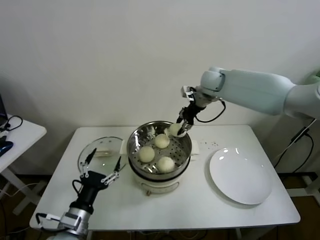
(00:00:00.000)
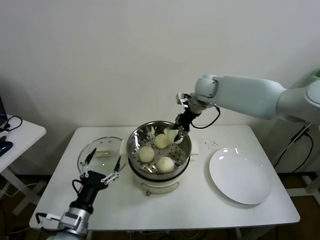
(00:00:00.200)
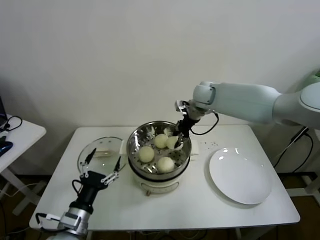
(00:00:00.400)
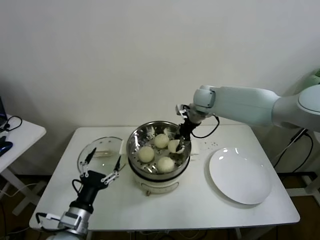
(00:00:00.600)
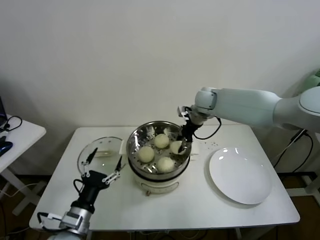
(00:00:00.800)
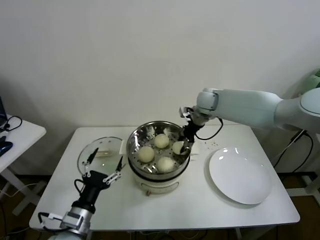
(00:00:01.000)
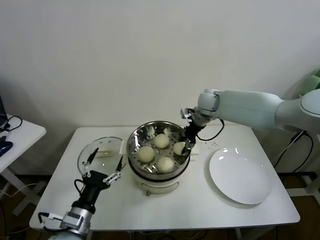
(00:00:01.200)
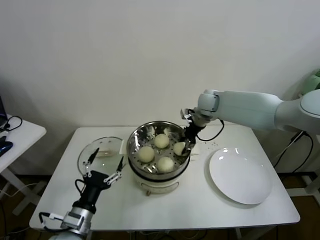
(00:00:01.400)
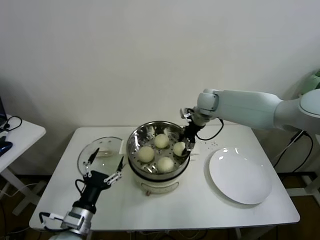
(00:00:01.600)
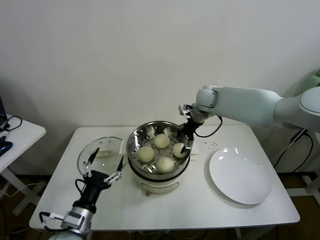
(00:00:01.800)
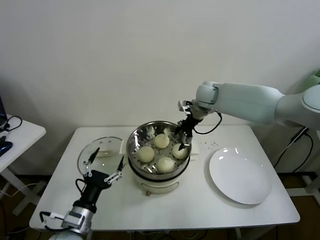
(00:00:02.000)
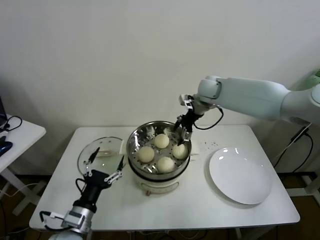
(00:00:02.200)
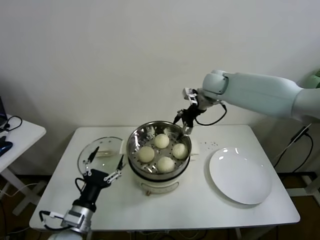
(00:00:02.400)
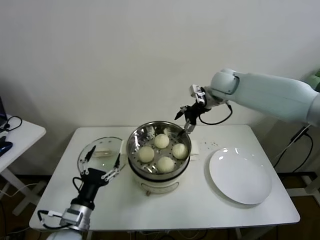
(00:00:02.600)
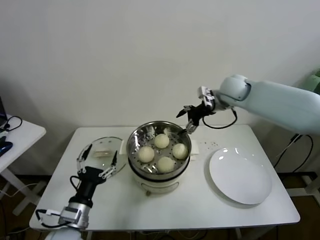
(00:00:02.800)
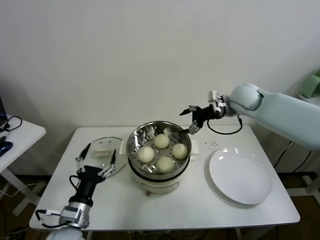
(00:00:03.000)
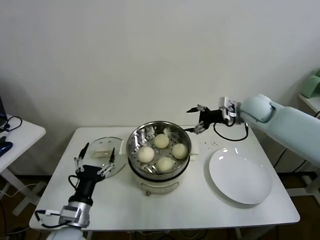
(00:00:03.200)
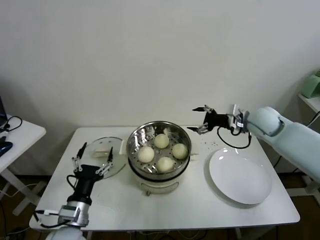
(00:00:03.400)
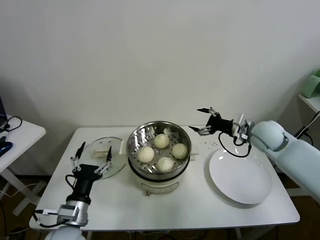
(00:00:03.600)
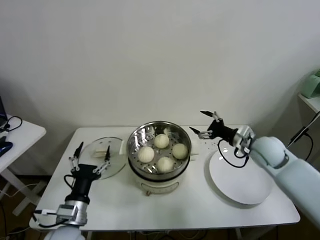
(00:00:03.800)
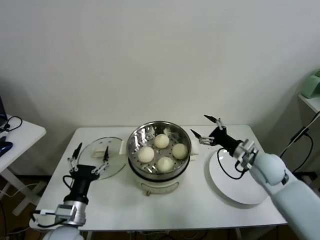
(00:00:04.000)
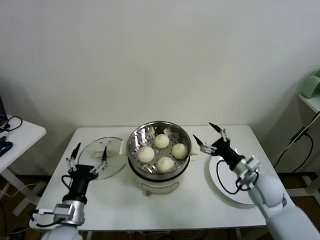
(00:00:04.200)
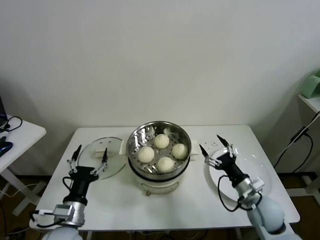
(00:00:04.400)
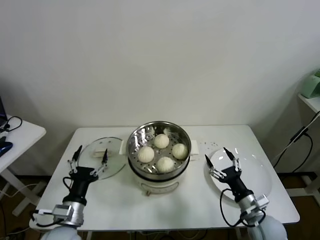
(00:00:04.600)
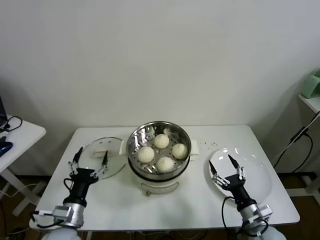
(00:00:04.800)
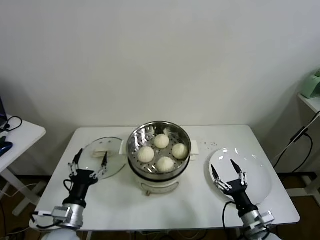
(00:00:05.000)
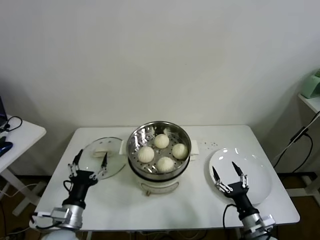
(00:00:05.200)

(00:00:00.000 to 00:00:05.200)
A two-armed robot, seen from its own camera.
Task of the whole recording: take steamed baozi put them in steamer.
00:00:00.000 - 00:00:01.800: The right gripper moves downward, roughly 5 cm, and opens its fingers.
00:00:01.800 - 00:00:03.400: The right gripper is displaced to the right and backward by about 20 cm.
00:00:03.400 - 00:00:05.200: The right gripper heads backward and downward, covering approximately 40 cm.
